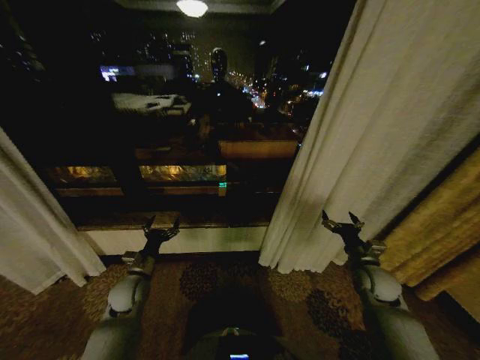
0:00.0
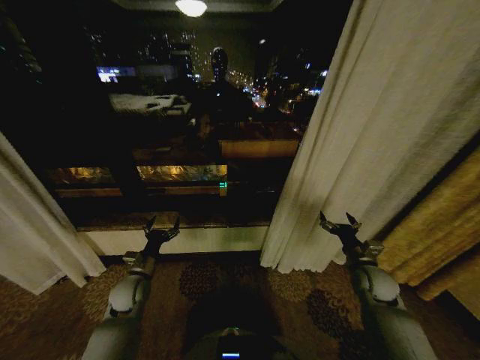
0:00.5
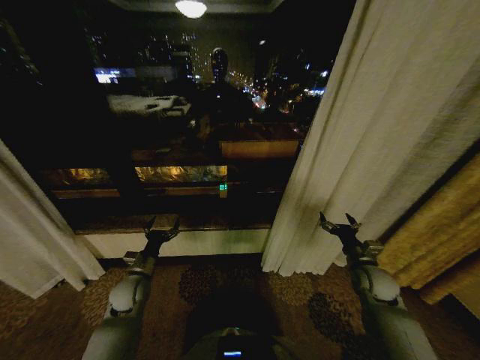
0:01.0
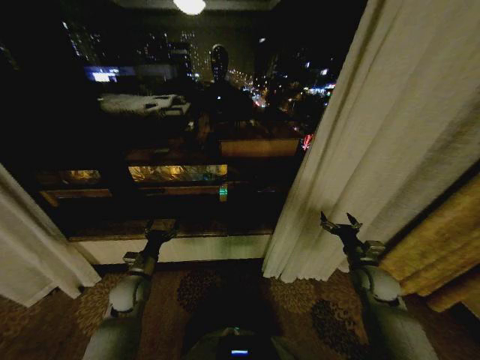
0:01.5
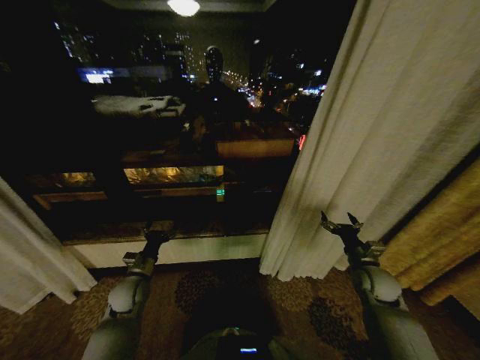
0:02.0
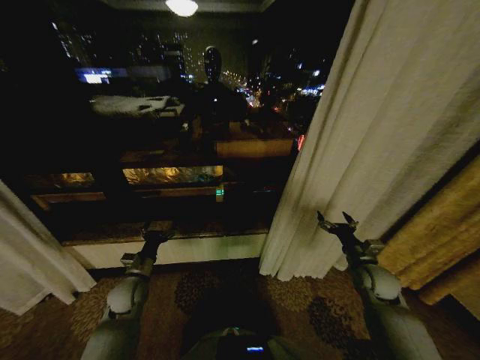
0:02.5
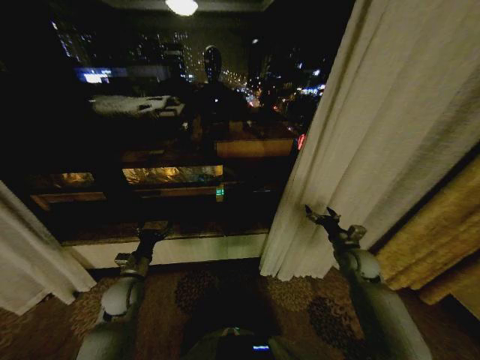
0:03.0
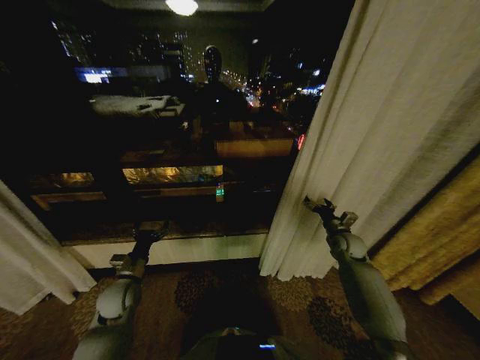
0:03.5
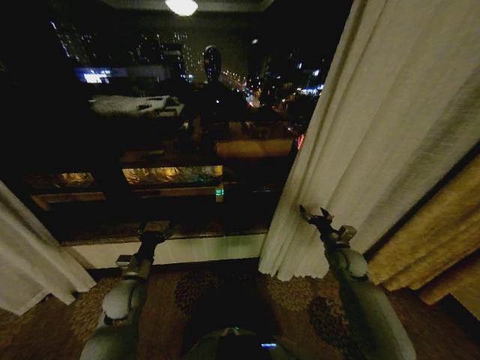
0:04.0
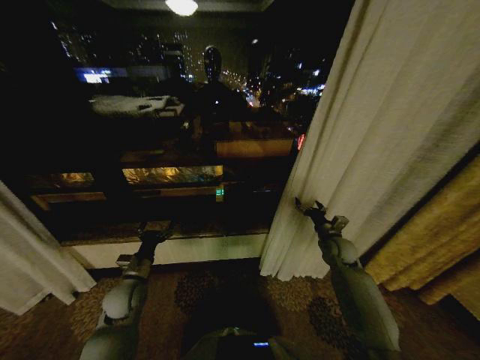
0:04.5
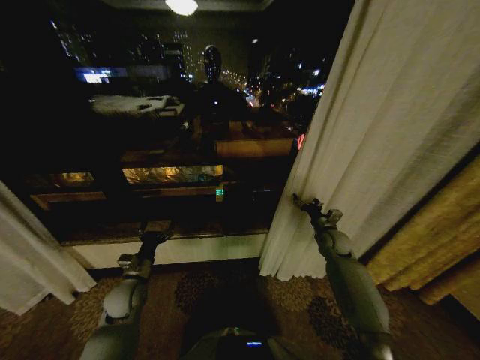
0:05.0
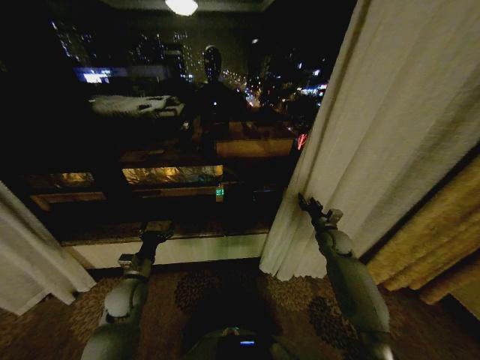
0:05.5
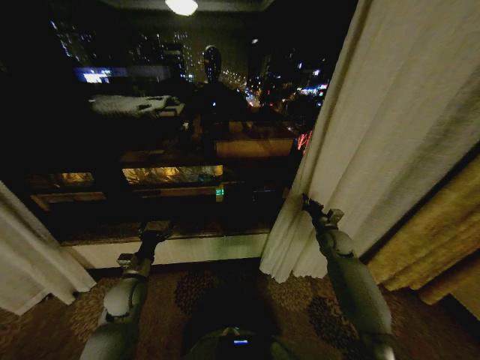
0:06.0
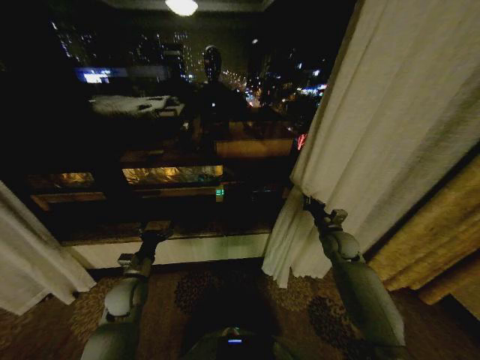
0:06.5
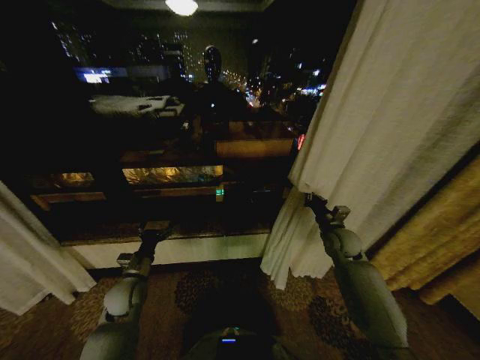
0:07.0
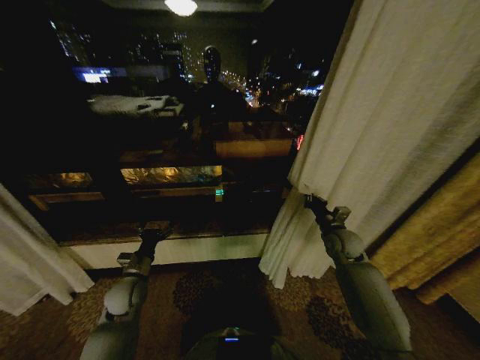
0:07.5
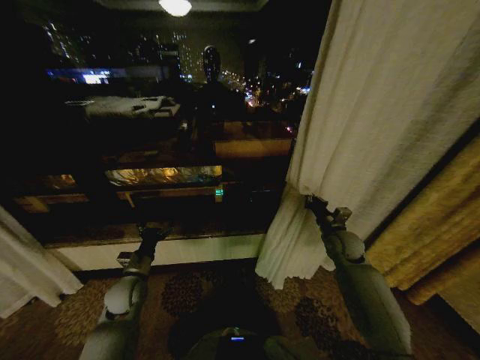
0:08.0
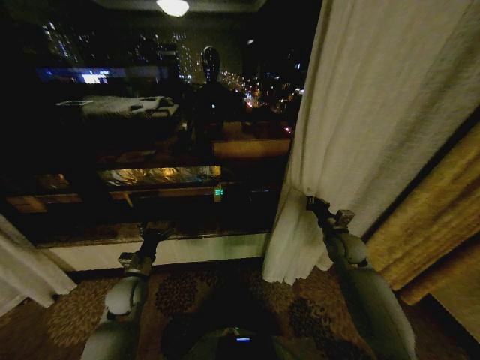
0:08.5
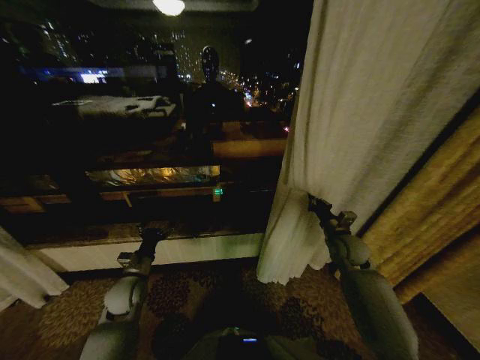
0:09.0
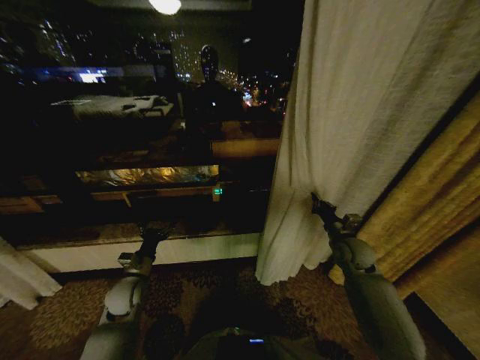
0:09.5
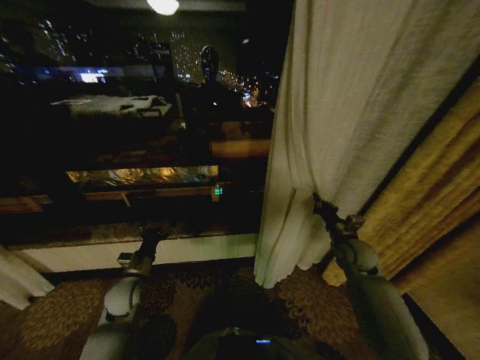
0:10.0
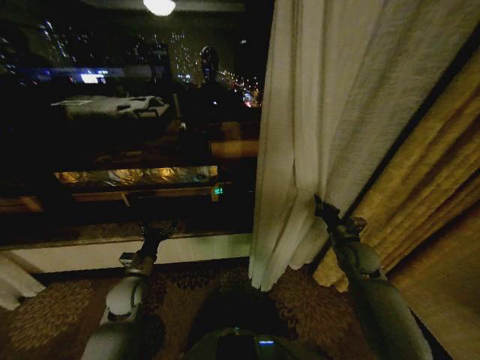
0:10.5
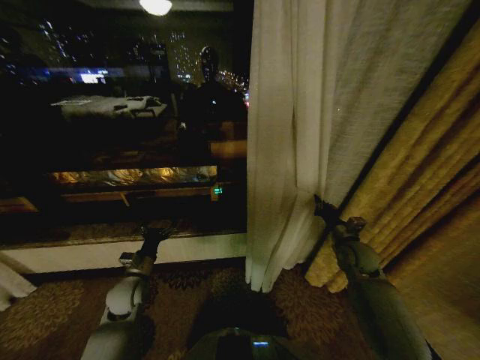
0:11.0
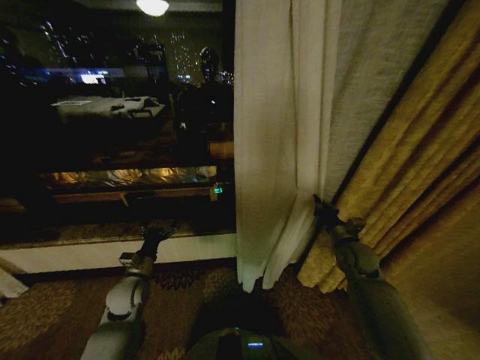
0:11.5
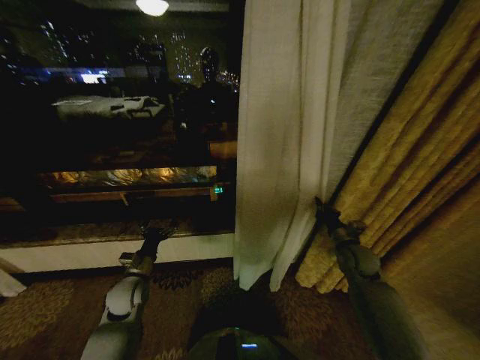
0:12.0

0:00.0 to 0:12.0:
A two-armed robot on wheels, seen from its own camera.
Task of the whole recording: Open the curtains by pulling them apart, changing their state from closed to fully open.
0:00.0 to 0:02.0: Both grippers stay about where they are.
0:02.0 to 0:04.0: The right gripper travels forward by approximately 5 cm.
0:04.0 to 0:06.0: The right gripper travels forward by about 5 cm, and closes.
0:06.0 to 0:08.0: The right gripper shifts by roughly 5 cm.

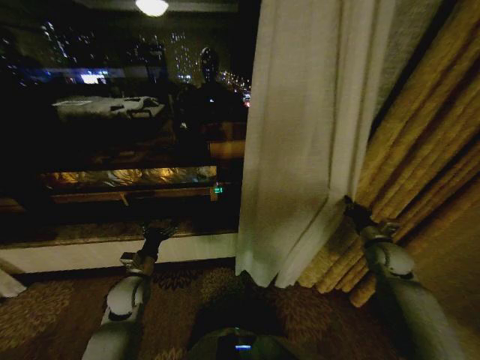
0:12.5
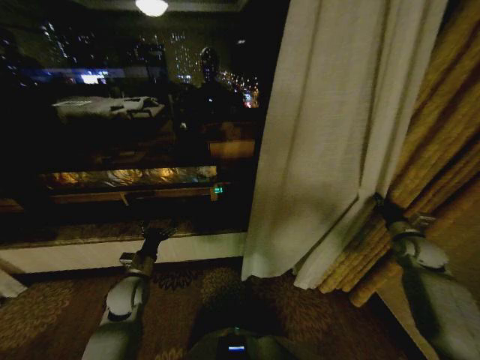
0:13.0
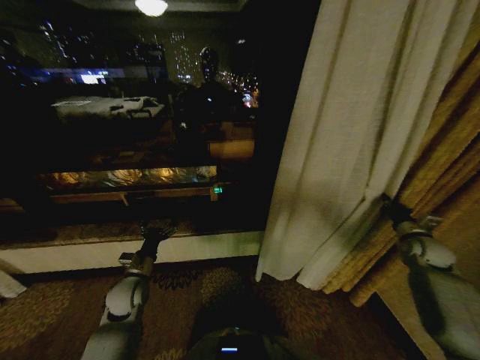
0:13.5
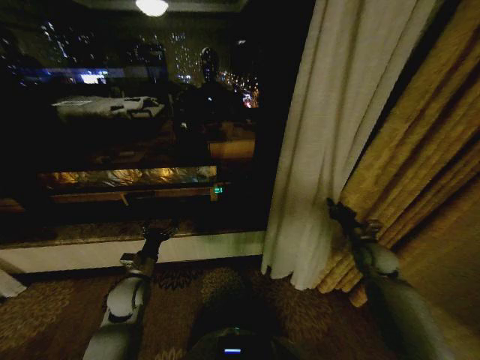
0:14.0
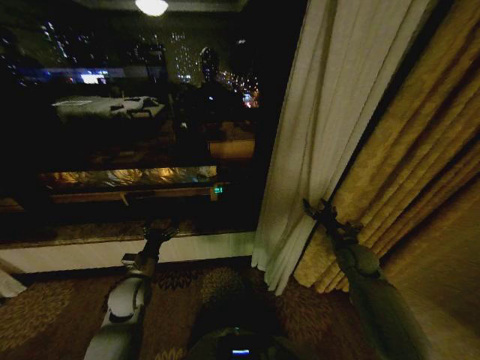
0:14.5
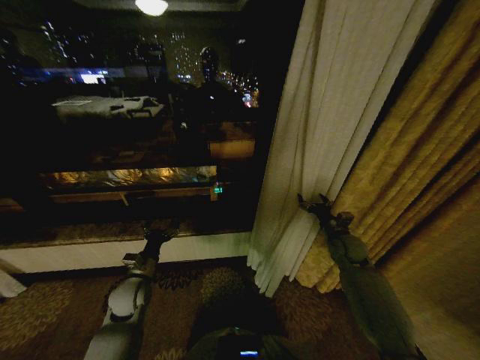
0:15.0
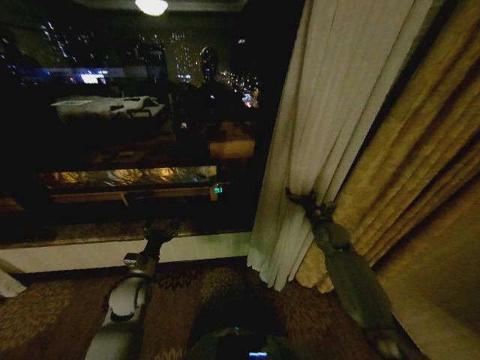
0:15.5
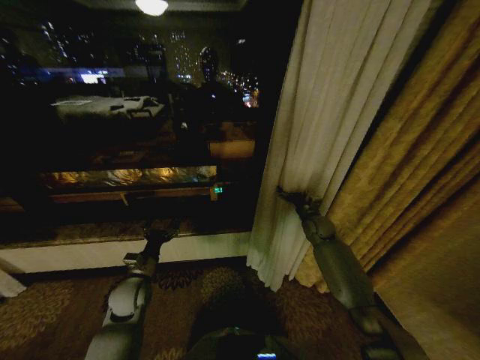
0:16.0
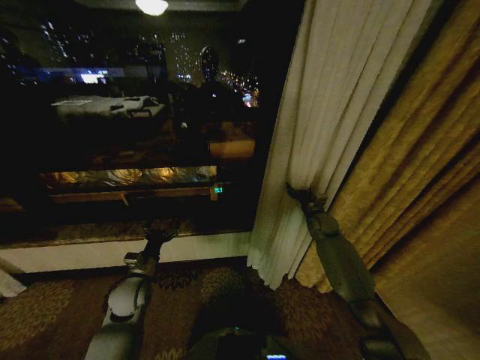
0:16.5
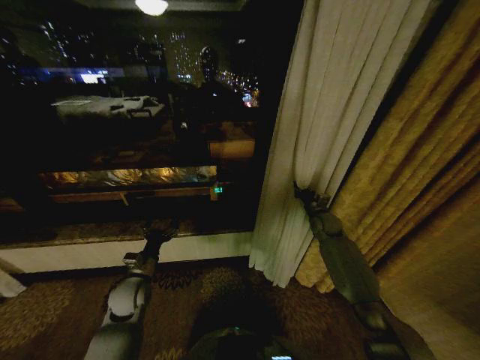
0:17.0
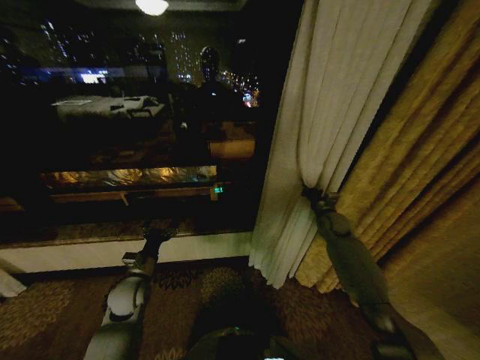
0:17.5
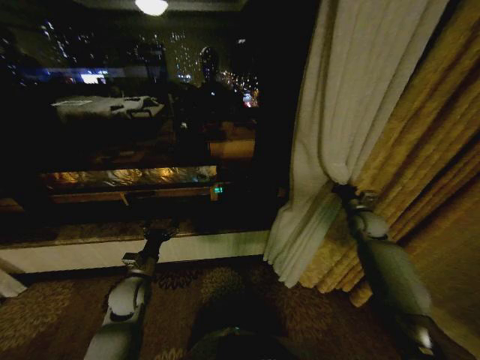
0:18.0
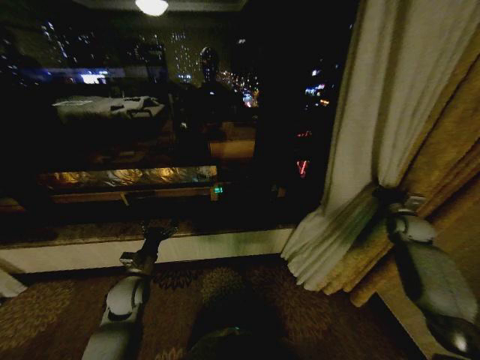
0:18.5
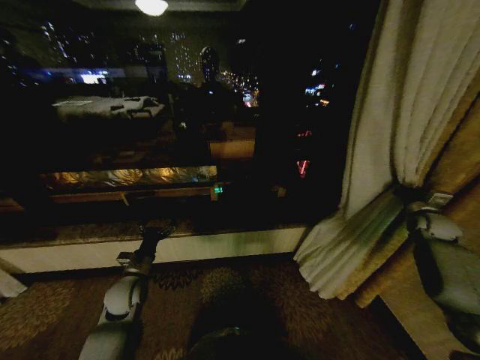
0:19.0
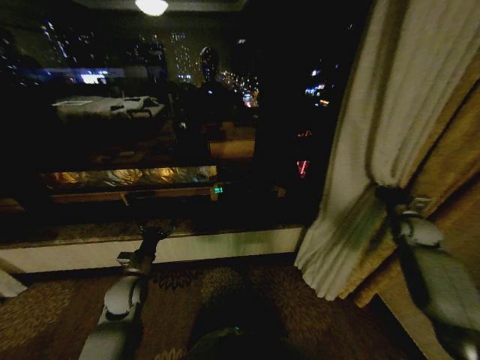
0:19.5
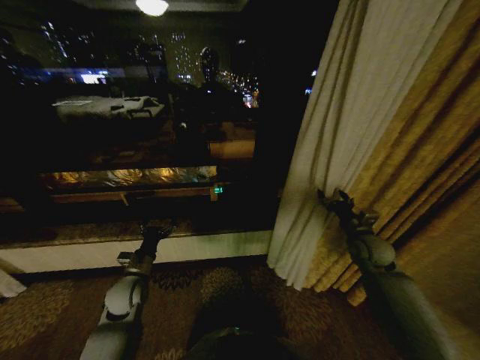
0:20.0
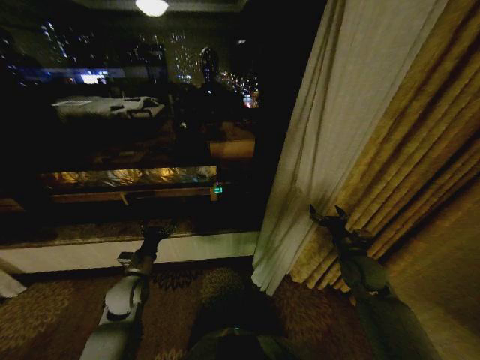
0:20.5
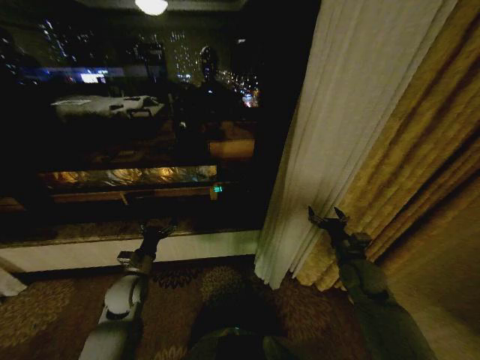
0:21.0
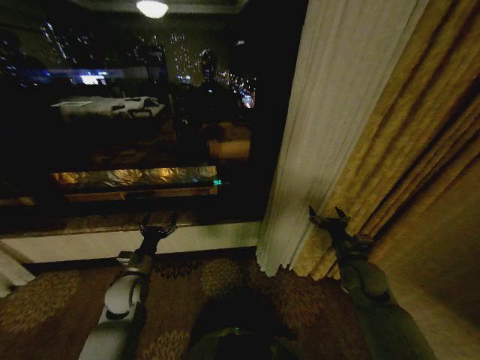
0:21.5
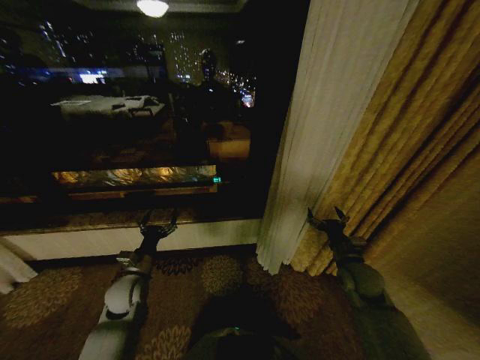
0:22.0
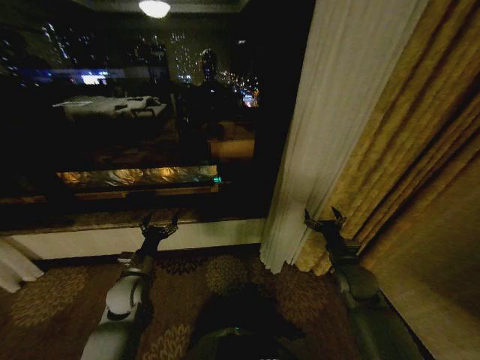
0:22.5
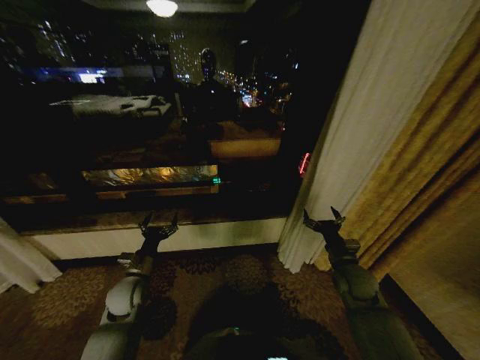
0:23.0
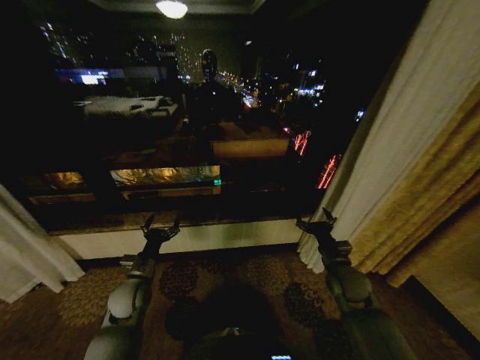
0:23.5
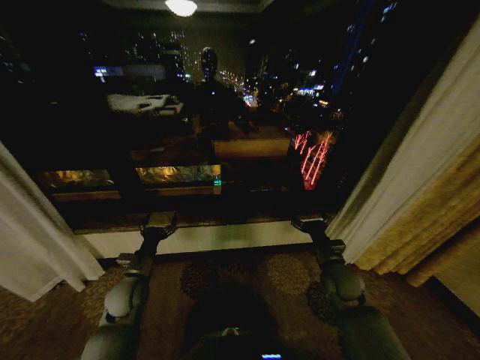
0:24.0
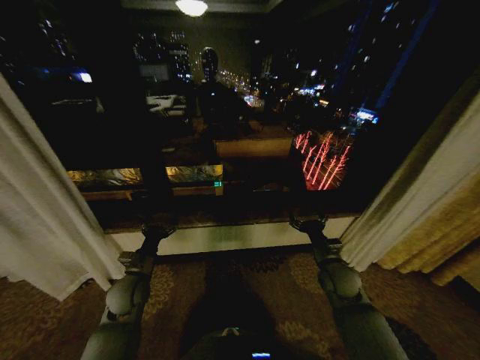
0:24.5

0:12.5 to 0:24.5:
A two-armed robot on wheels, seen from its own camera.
Task of the whole recording: Open the curtains by pulling them apart, changing their state from closed to fully open.
0:12.5 to 0:14.5: The right gripper moves to the left, some 10 cm, and opens.
0:14.5 to 0:16.5: The right gripper goes about 15 cm forward.
0:16.5 to 0:18.5: The right gripper goes approximately 20 cm to the right, and closes its fingers.
0:18.5 to 0:20.5: The right gripper moves to the left and backward, roughly 25 cm, and opens up.
0:20.5 to 0:22.5: The grippers stay close to where they were, moving slightly.

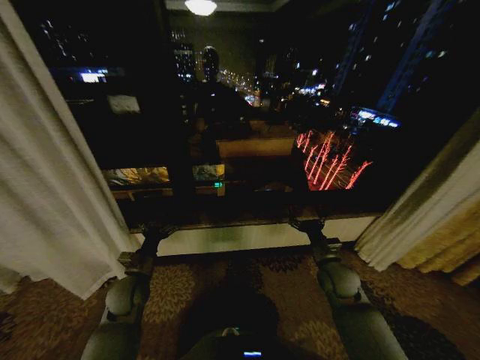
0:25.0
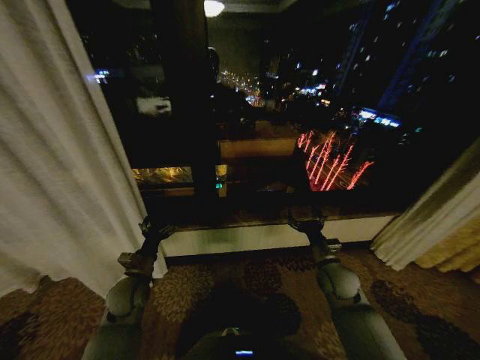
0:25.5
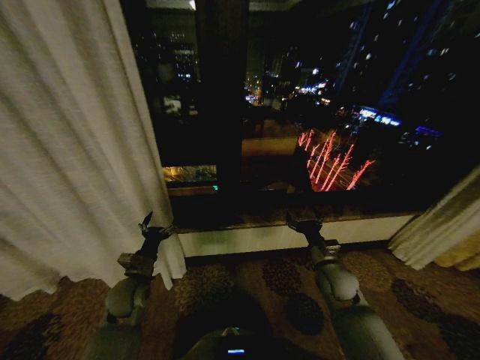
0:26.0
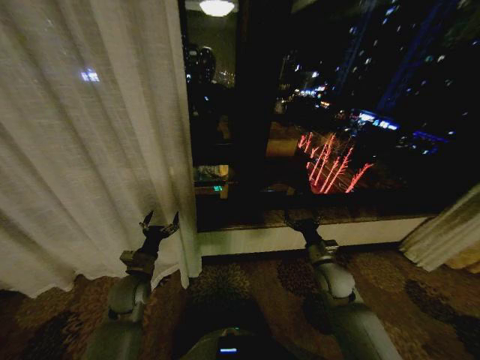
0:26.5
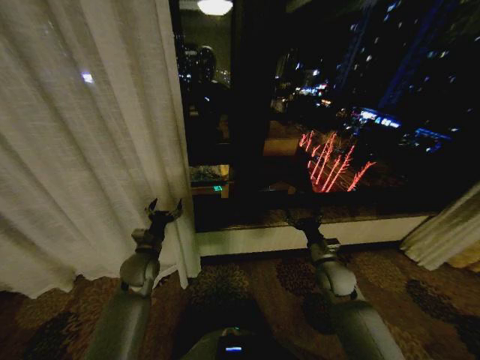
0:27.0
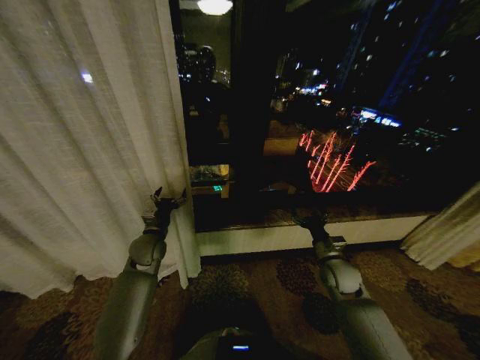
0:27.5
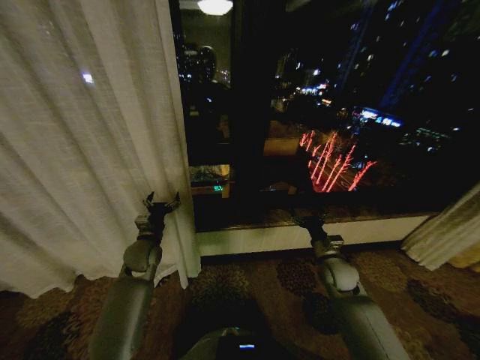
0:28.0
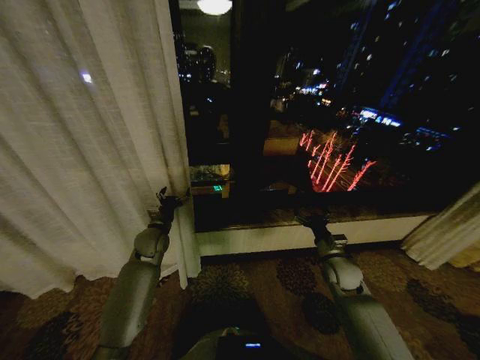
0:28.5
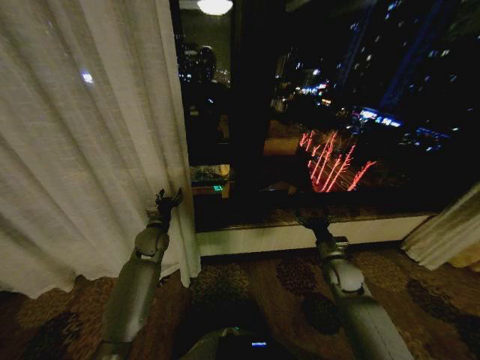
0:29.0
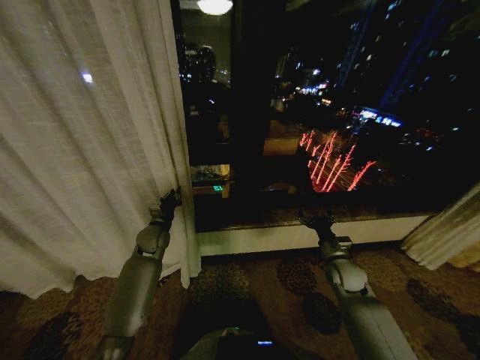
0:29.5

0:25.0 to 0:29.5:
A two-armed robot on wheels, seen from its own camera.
Task of the whole recording: Open the curtains by pulling them apart, changing their state from closed to fully open.
0:25.0 to 0:27.0: The left gripper goes about 5 cm forward.
0:27.0 to 0:29.5: The left gripper travels forward by about 10 cm, and closes its fingers.
